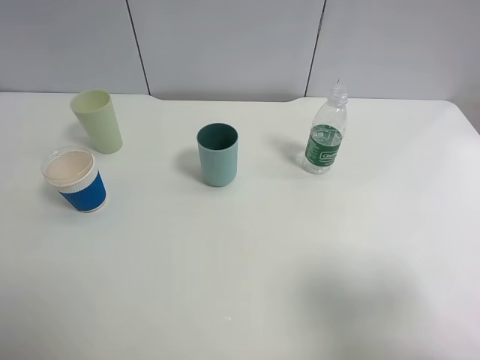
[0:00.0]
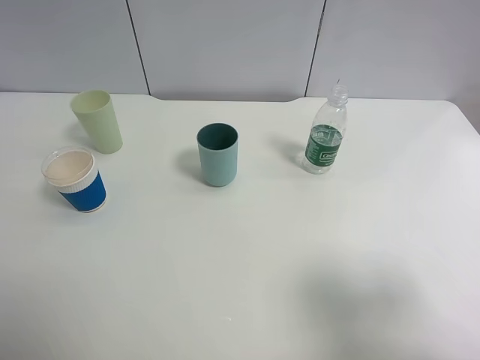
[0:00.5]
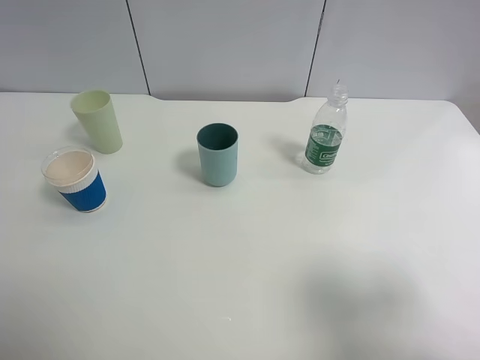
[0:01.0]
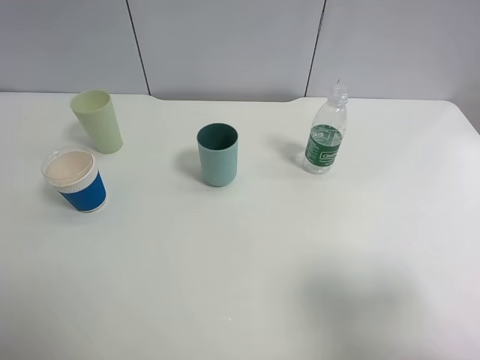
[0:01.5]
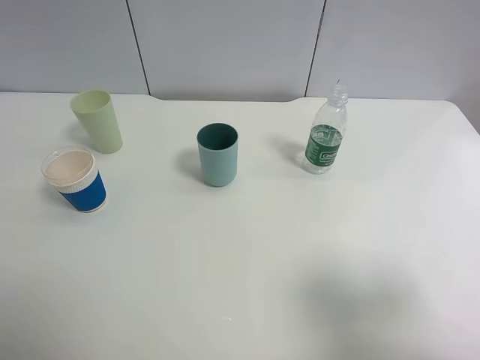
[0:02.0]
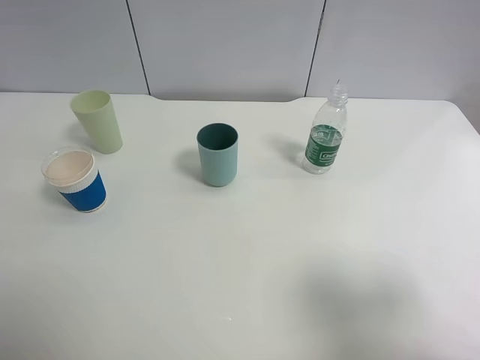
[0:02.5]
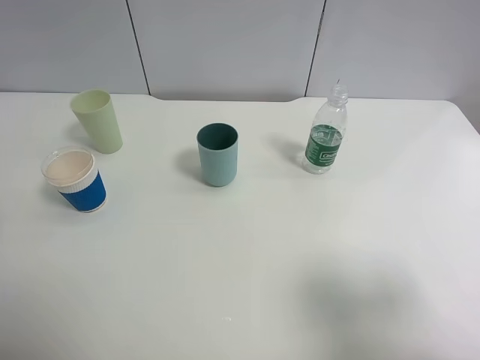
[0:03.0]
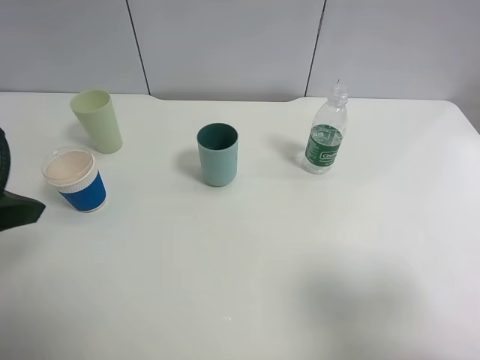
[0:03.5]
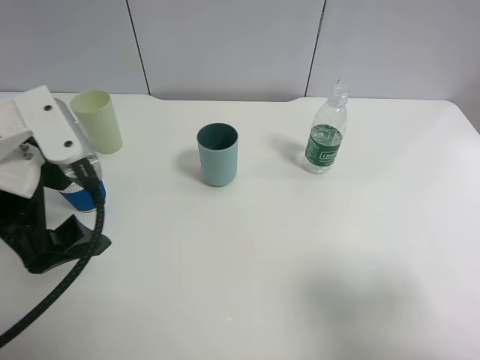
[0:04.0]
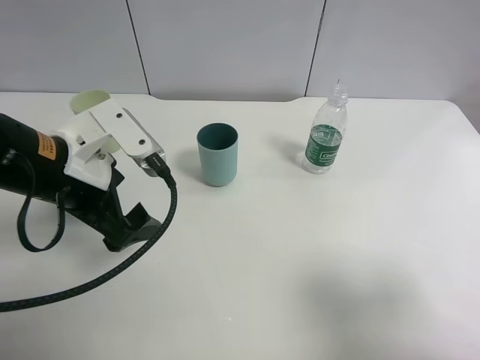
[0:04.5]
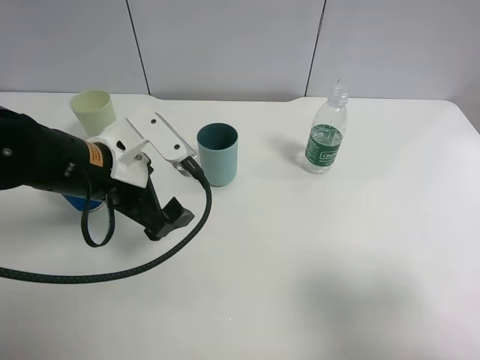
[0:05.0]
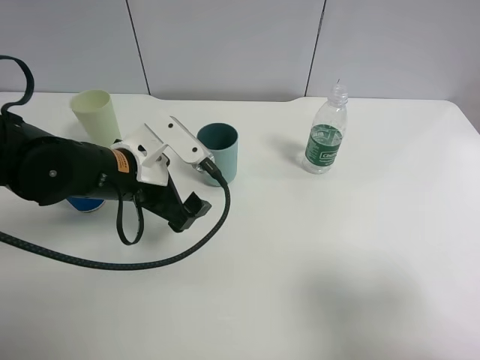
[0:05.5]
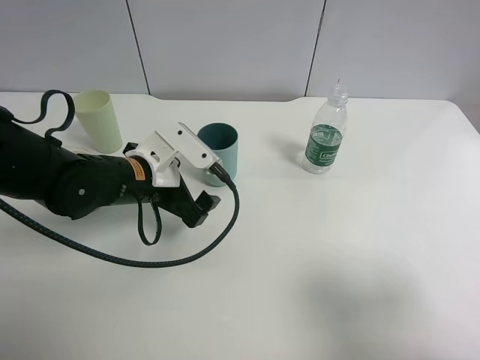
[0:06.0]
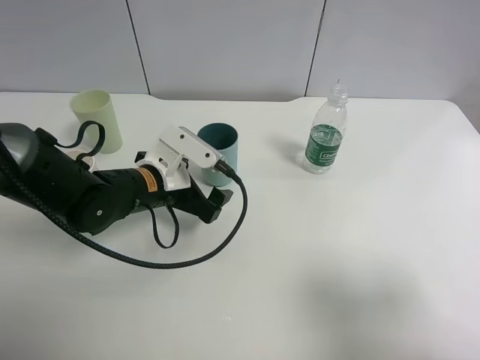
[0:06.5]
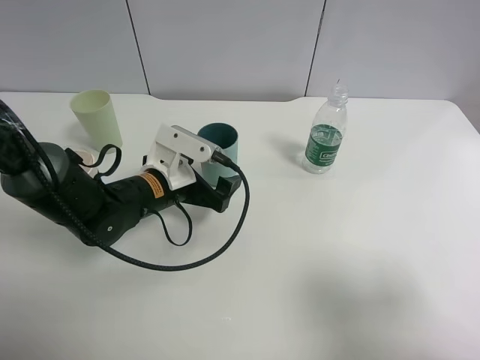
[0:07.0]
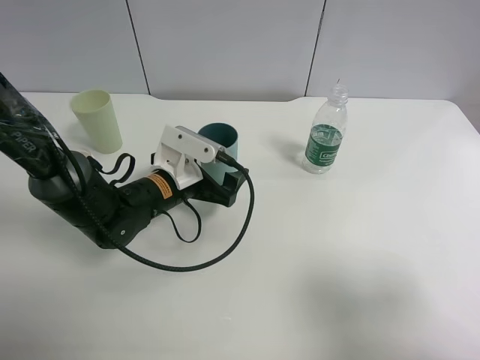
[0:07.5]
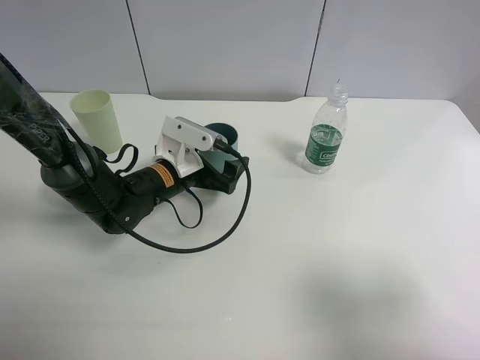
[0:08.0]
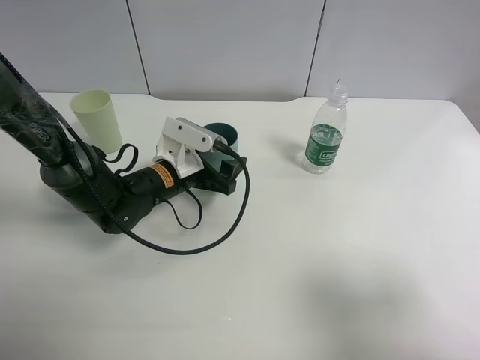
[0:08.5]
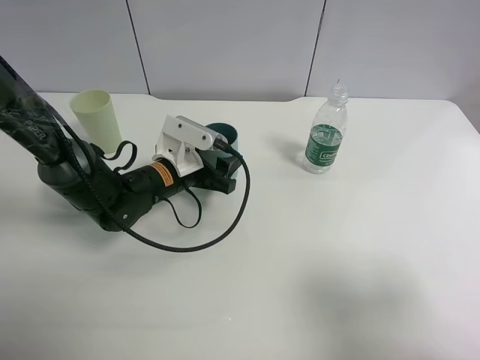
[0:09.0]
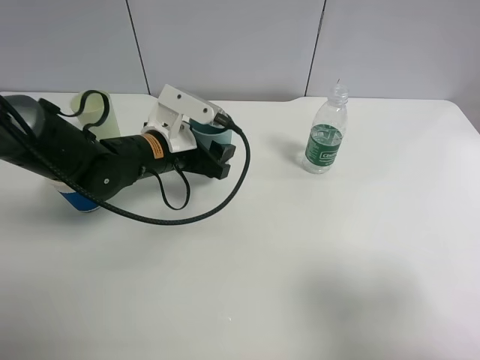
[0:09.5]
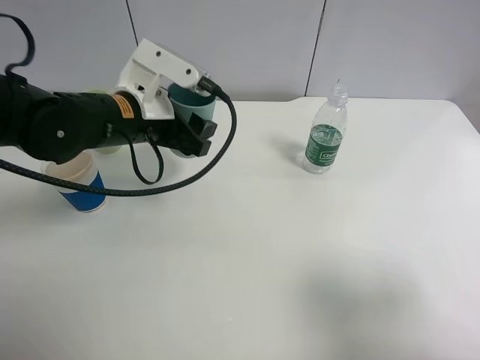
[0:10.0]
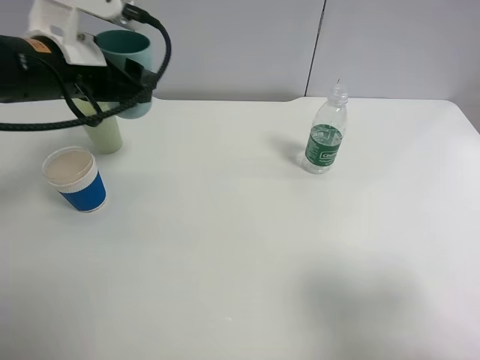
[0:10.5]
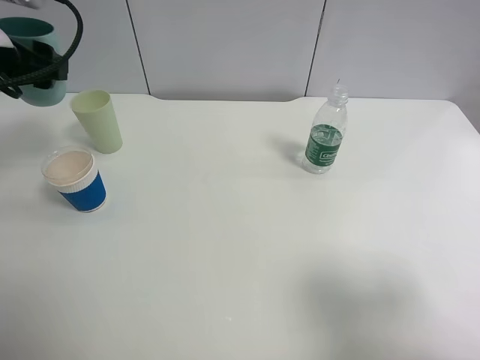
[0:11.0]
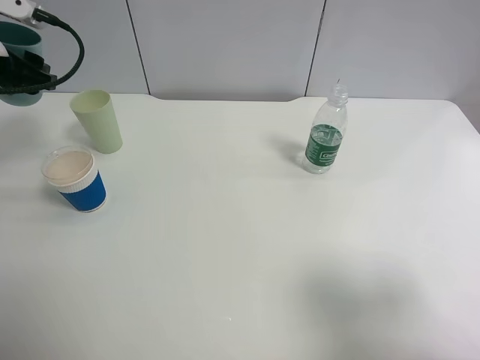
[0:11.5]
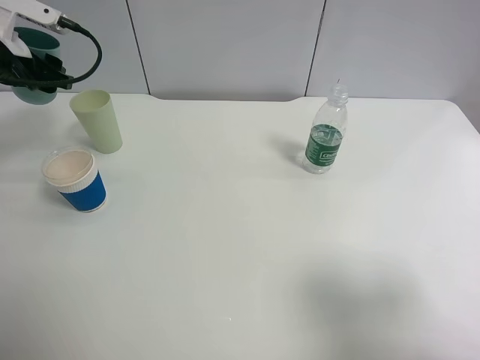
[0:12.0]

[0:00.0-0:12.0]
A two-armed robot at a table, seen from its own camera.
Task of the whole recording: use a clamp to hold the bottle of the drink, pour the beverage into a random cup, then clamp the cup containing the drink and pour the drink into another random cup.
Step, 0:00.0 to 0:10.0: Pick up the blue plastic cup bottle with left gripper.
0:00.0 to 0:02.0: Neither gripper changes place.
0:02.0 to 0:04.0: The left gripper is displaced forward and to the right by about 20 cm.
0:04.0 to 0:06.0: The left gripper shifts roughly 15 cm downward, forward and to the right.
0:06.0 to 0:08.0: The left gripper goes about 5 cm downward and forward.
0:08.0 to 0:10.0: The left gripper travels upward by roughly 15 cm, and closes.
0:10.0 to 0:12.0: The left gripper goes about 20 cm to the left.

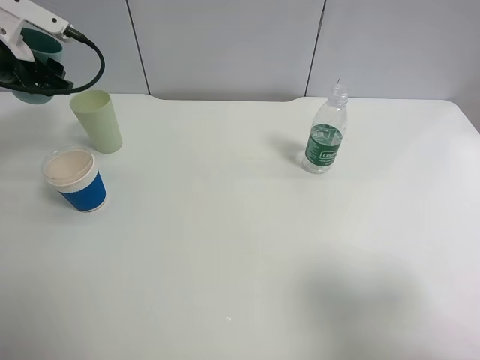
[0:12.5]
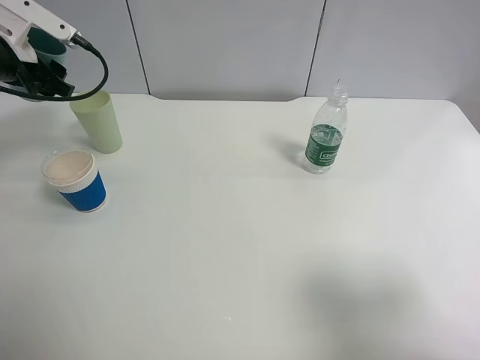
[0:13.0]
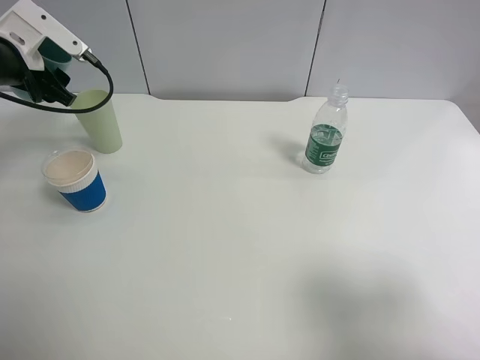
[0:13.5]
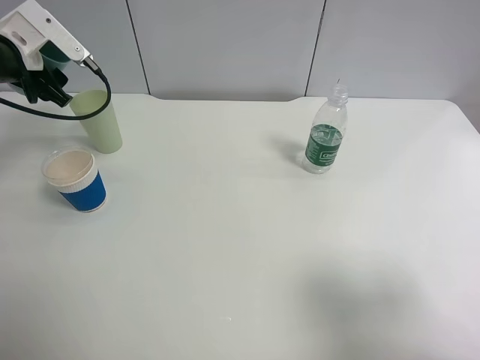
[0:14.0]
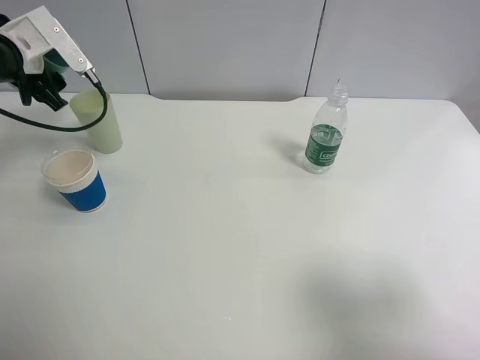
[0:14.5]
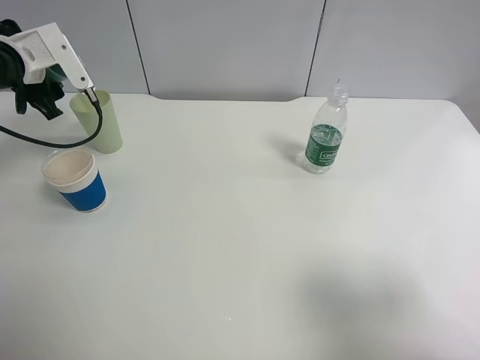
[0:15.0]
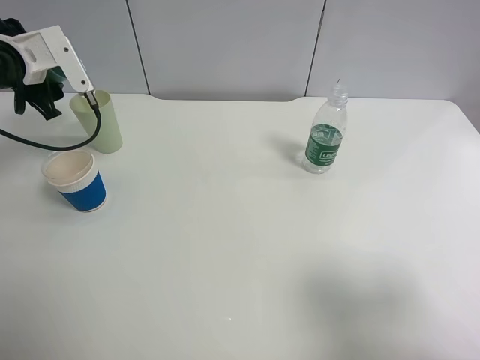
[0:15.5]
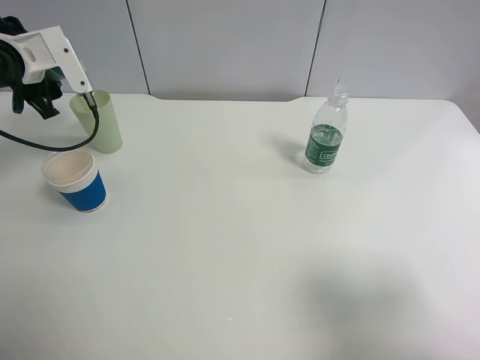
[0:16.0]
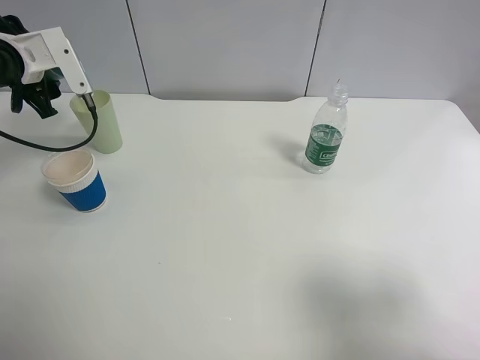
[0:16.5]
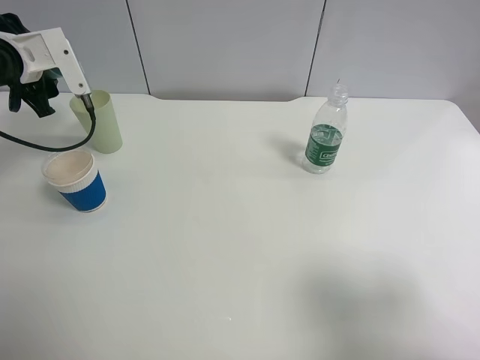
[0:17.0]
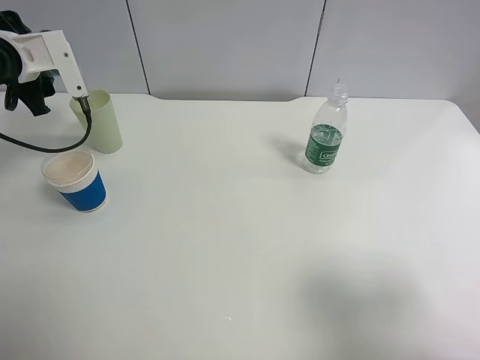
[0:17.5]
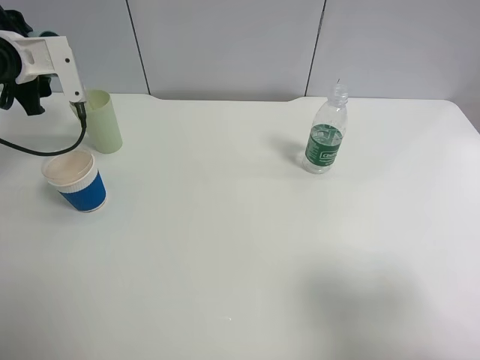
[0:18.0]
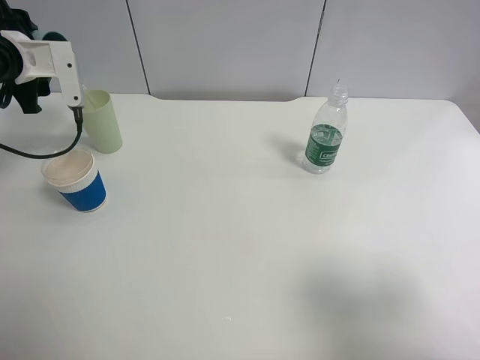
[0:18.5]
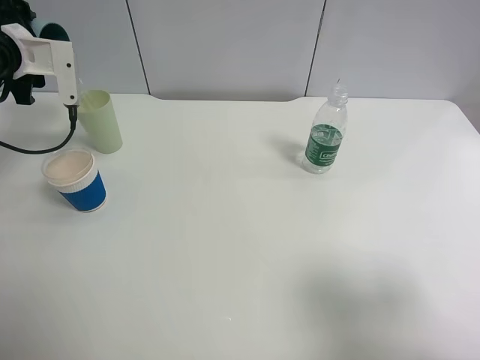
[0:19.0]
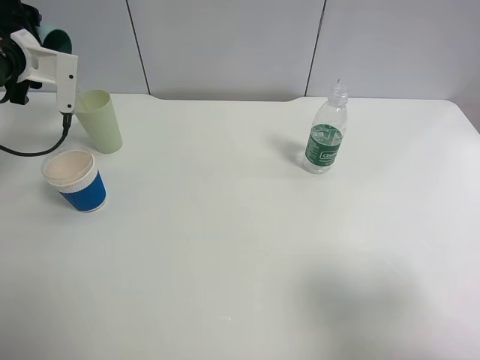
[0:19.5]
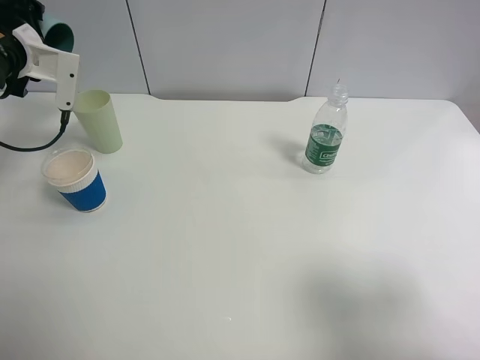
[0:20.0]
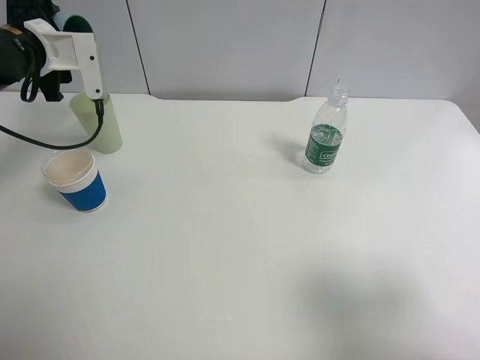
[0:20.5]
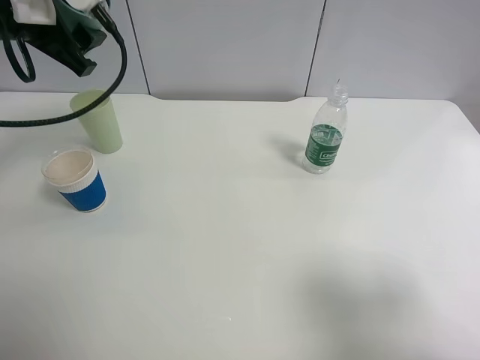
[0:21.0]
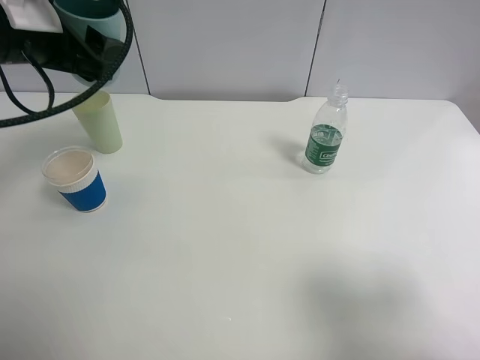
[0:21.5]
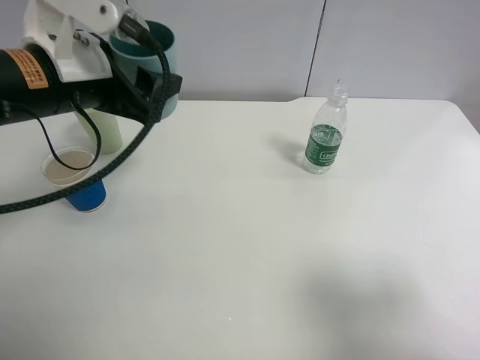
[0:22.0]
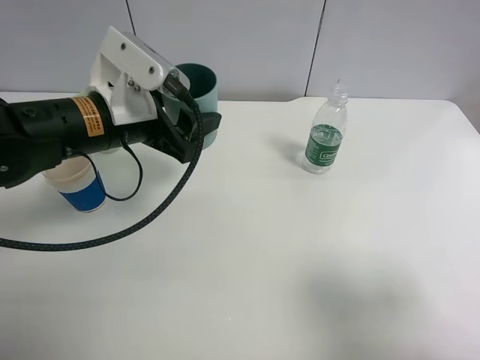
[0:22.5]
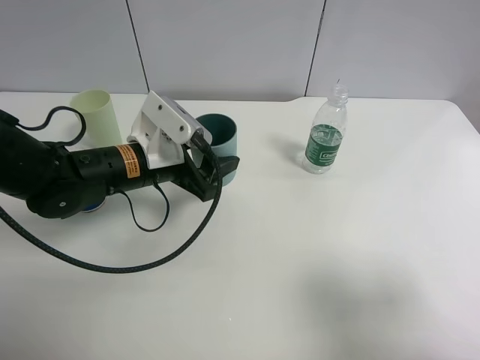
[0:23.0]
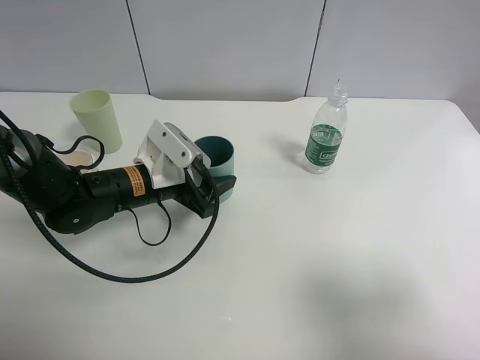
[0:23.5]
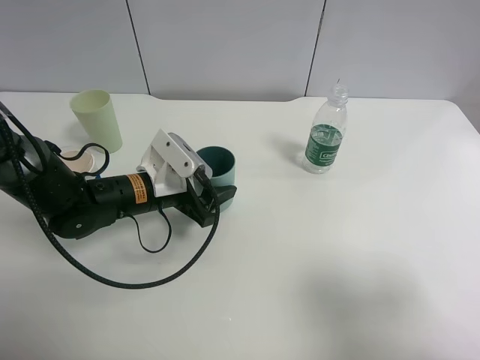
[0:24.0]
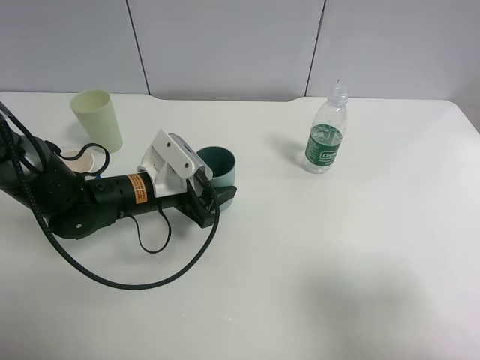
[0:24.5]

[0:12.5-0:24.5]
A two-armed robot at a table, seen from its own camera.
Task of the whole recording: use a clamp to hold the bottle of the drink, pour the beverage into a random cup, then clamp the cup containing the drink and pour the drink into another random cup.
Step, 0:12.5 to 0:20.5: Pour the water into the green plastic cup with left gripper.
0:14.5 to 0:16.5: The grippers make only small movements.
0:16.5 to 0:18.5: There are only small adjustments of the grippers.
0:20.5 to 0:22.5: The left gripper goes some 20 cm to the right and backward.
0:22.5 to 0:24.5: The left gripper heads downward, covering some 10 cm.

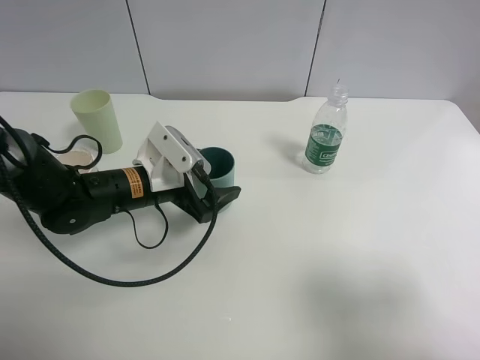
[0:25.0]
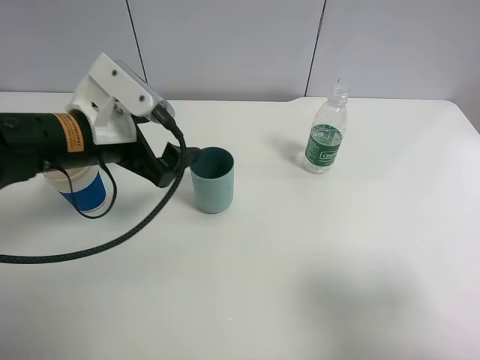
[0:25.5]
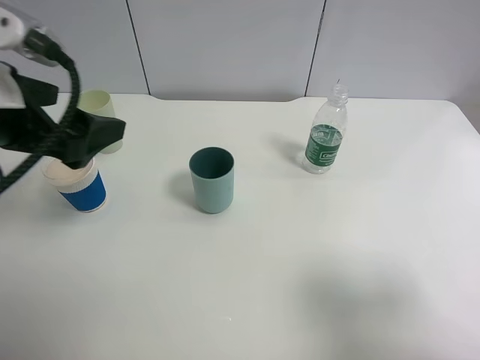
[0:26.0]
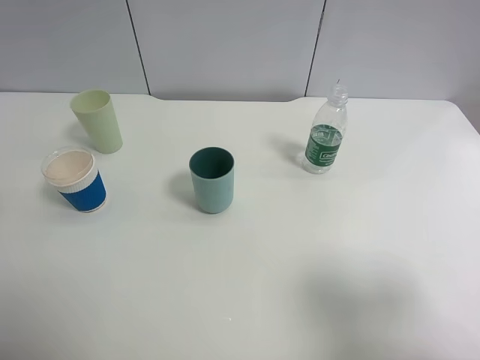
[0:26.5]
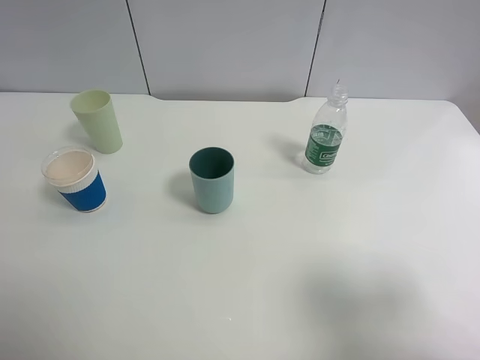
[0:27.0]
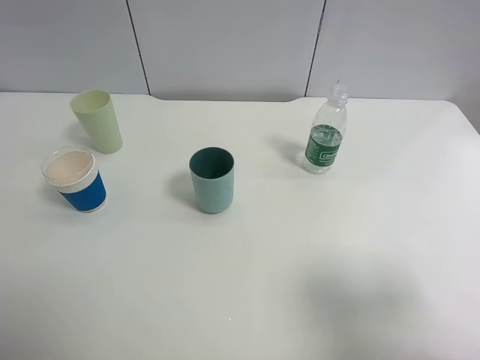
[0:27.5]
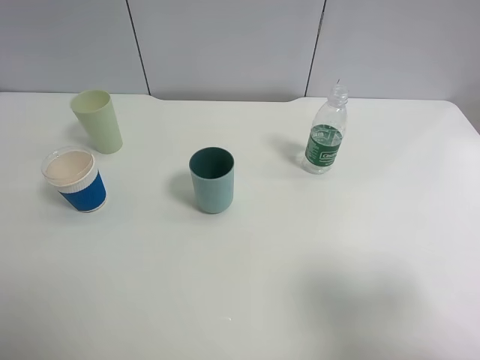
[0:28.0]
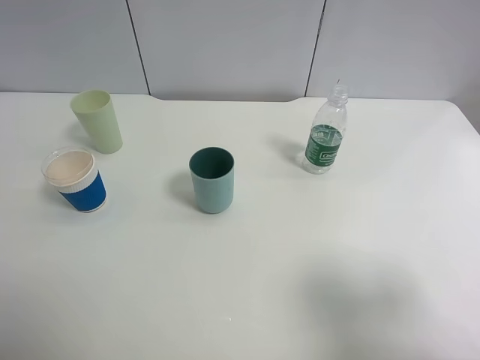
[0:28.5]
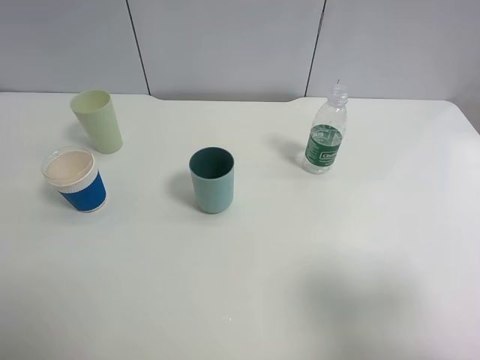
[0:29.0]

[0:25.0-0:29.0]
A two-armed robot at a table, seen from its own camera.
Task of the whole recording: use a clamp to hold the bottle of the drink, pour the beverage into a random cup, then clamp the cup containing the drink and pour the drink into another random cup.
0:25.0 to 0:27.0: The left gripper travels upward, backward and to the left by roughly 40 cm.
